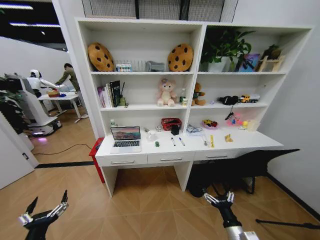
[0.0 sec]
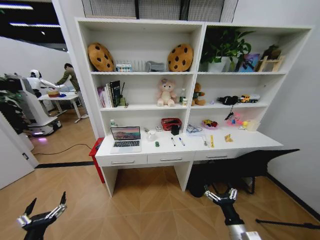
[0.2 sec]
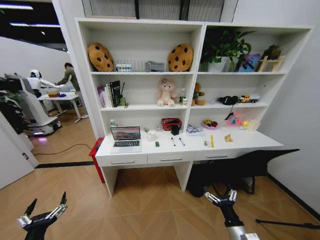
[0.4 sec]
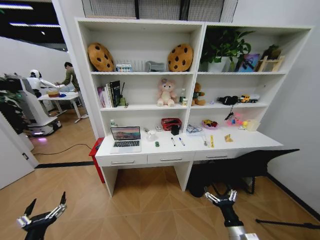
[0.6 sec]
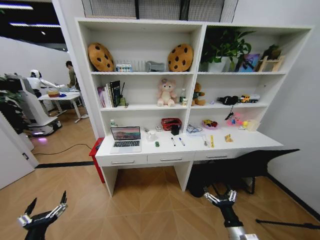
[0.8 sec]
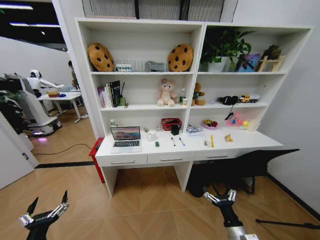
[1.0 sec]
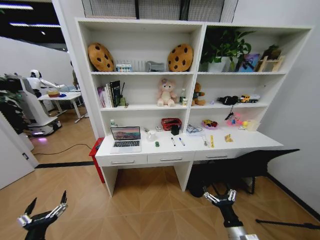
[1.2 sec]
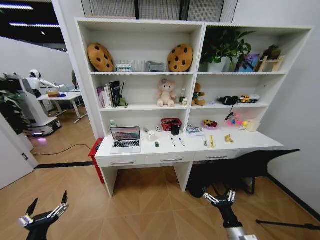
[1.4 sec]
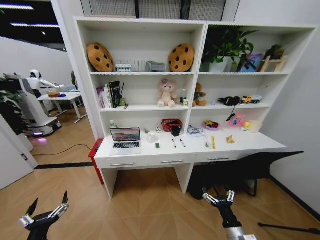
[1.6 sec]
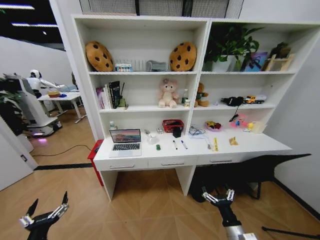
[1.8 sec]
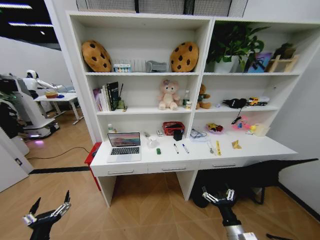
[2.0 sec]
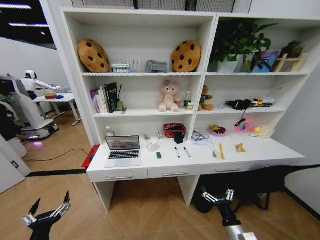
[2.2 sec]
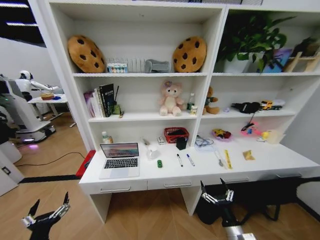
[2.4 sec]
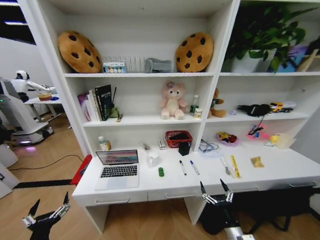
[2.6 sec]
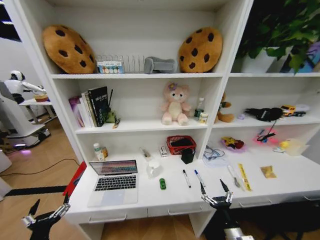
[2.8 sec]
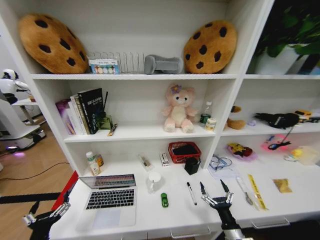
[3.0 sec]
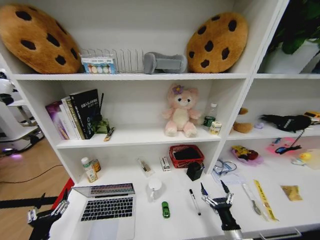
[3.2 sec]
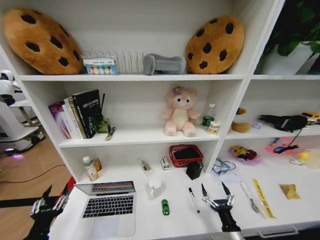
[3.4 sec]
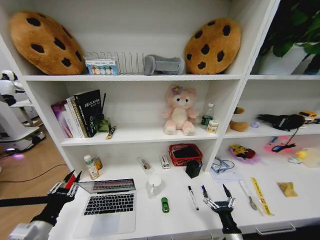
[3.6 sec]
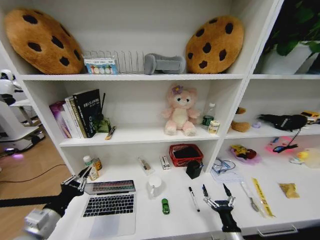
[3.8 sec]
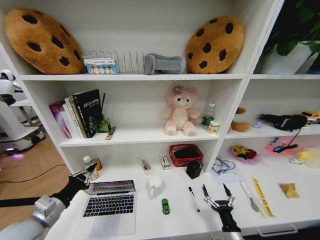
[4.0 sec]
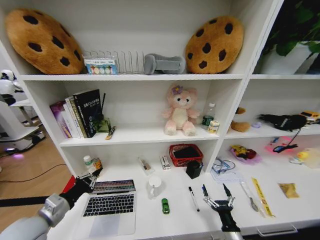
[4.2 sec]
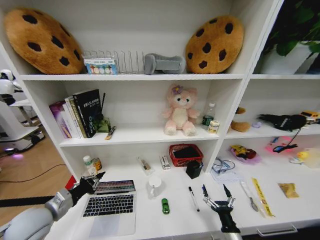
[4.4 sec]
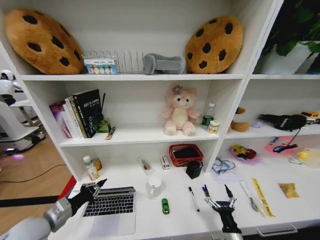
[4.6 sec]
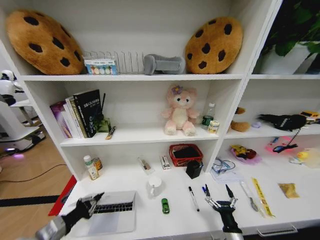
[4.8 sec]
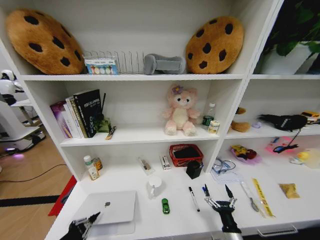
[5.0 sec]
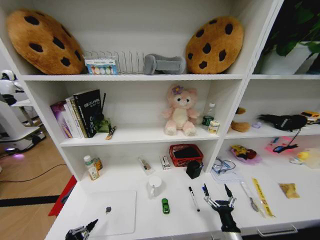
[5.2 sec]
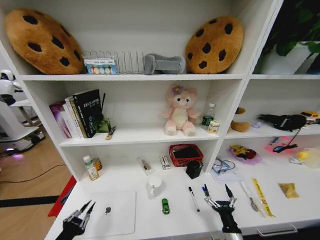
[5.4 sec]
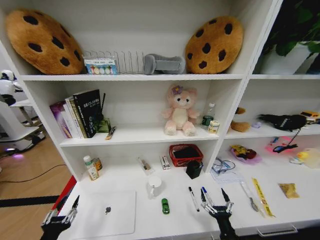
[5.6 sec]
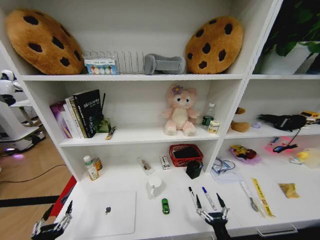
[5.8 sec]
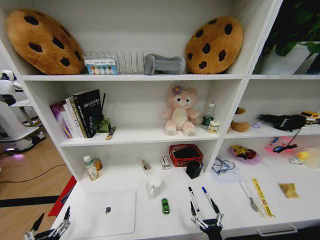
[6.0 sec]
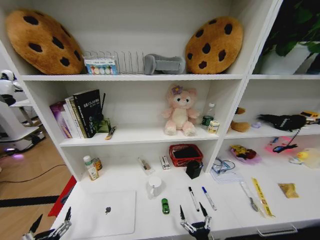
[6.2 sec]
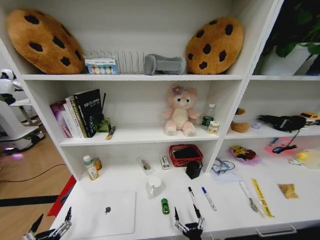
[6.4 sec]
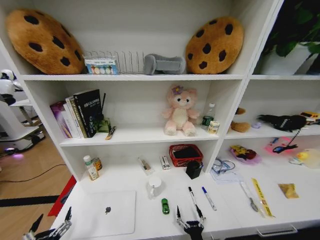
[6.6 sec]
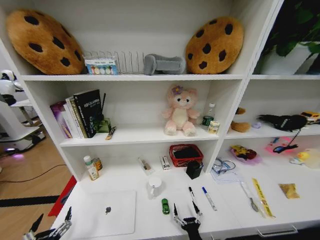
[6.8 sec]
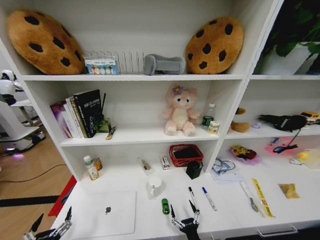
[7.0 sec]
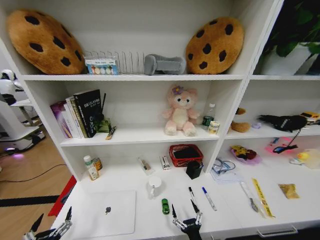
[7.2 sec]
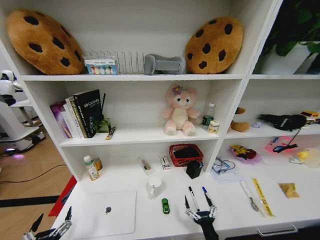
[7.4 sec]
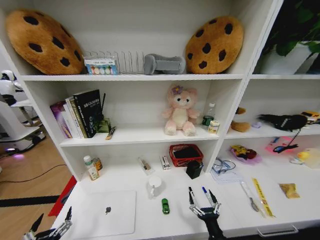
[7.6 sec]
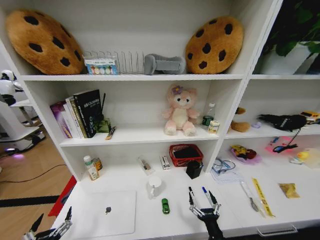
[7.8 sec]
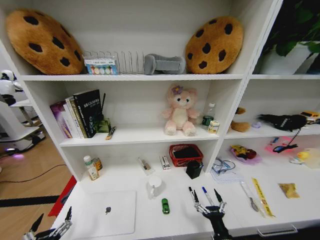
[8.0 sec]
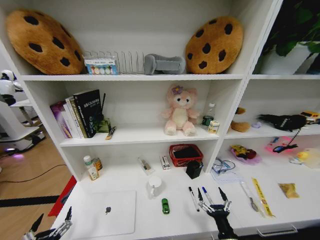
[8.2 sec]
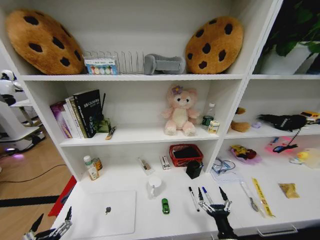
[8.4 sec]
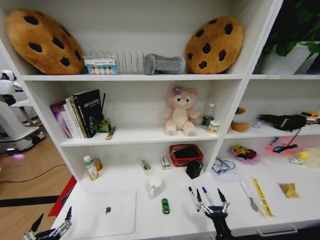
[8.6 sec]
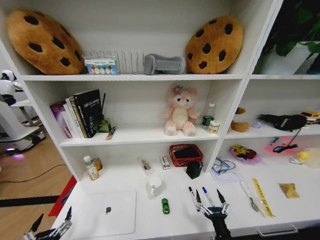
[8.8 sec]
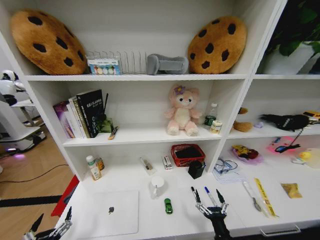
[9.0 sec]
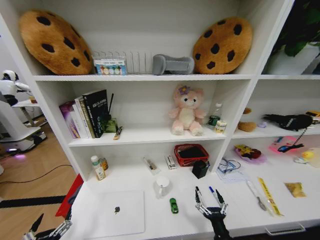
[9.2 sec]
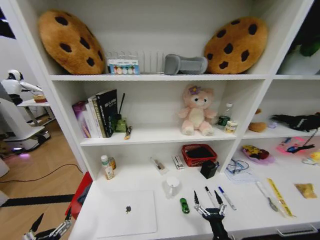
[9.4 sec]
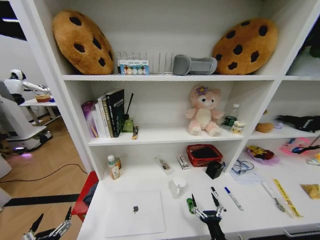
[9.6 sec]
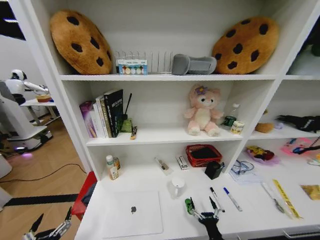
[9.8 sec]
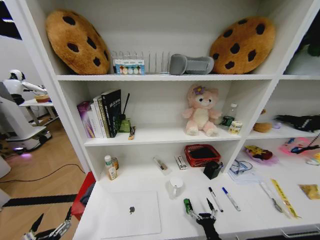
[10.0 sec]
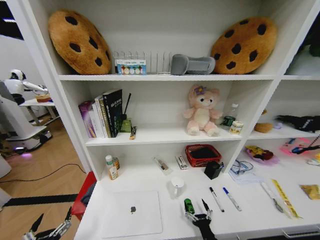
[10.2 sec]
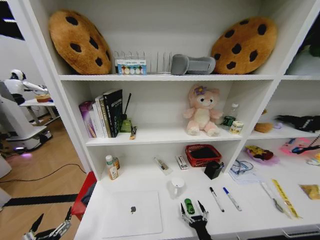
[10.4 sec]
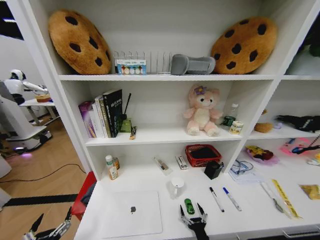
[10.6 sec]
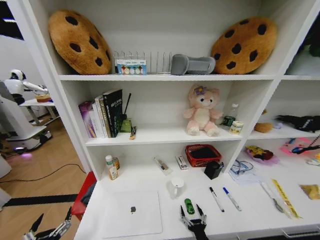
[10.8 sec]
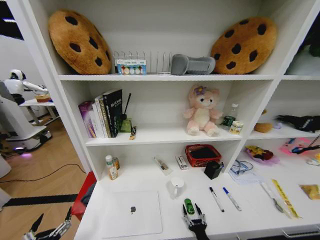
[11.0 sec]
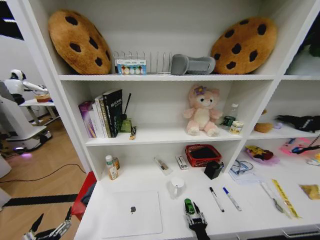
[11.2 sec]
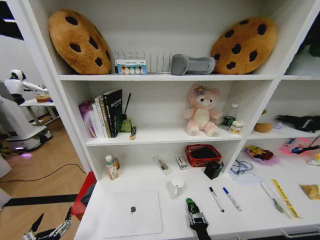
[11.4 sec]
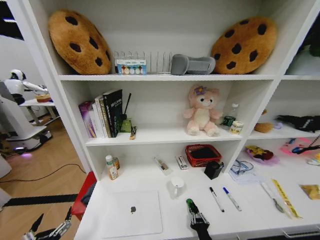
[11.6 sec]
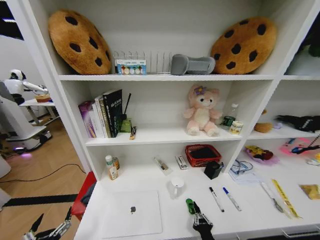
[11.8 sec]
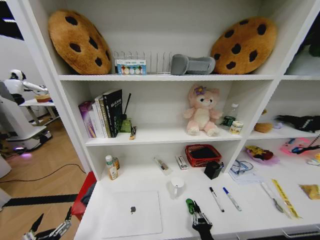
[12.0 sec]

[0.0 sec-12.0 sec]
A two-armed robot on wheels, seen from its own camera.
Task of the whole recording: Organize the objects on the table.
3.0 sec to 4.4 sec: The left gripper goes roughly 15 cm forward and upward, and closes up.
4.4 sec to 6.0 sec: The left gripper heads backward and downward, covering approximately 20 cm, and opens up; the right gripper moves backward and to the left, some 10 cm.
7.6 sec to 9.0 sec: The grippers stay close to where they were, moving slightly.
9.0 sec to 10.4 sec: The right gripper moves downward, about 5 cm.
10.4 sec to 12.0 sec: The right gripper closes.

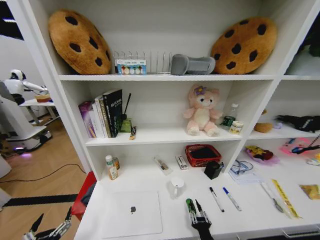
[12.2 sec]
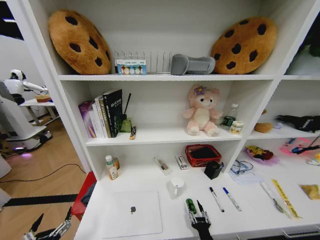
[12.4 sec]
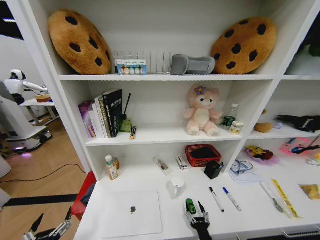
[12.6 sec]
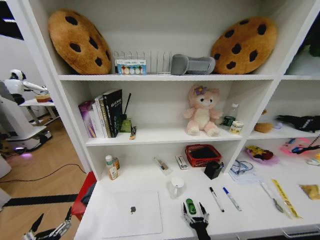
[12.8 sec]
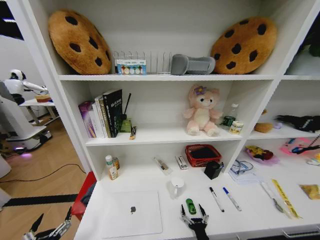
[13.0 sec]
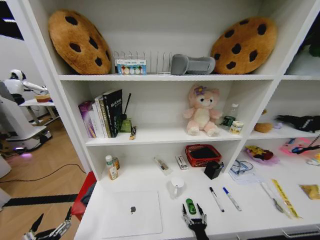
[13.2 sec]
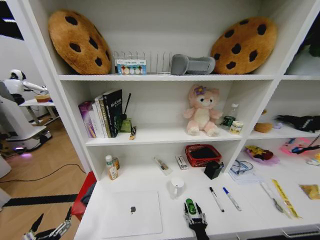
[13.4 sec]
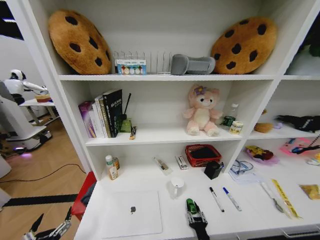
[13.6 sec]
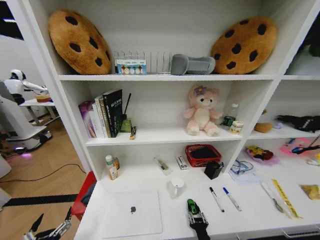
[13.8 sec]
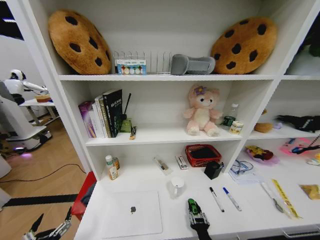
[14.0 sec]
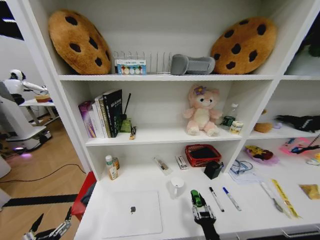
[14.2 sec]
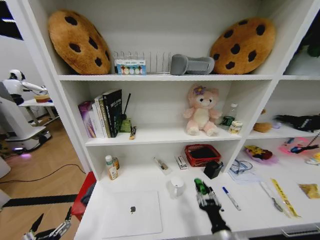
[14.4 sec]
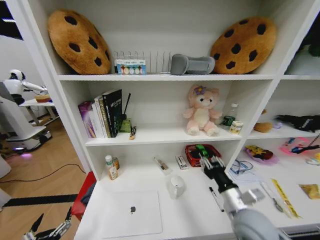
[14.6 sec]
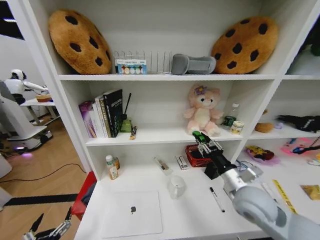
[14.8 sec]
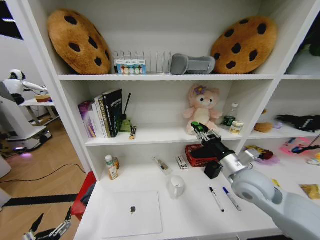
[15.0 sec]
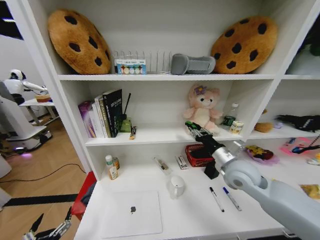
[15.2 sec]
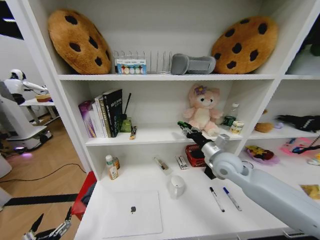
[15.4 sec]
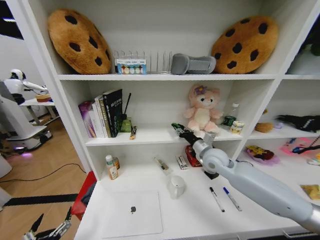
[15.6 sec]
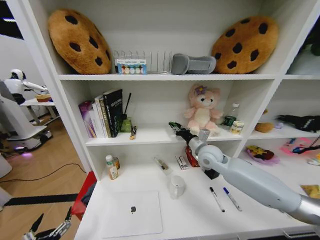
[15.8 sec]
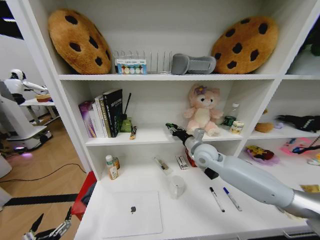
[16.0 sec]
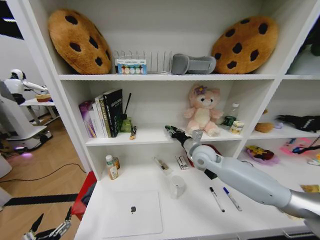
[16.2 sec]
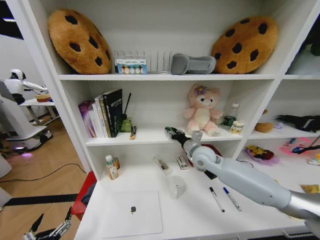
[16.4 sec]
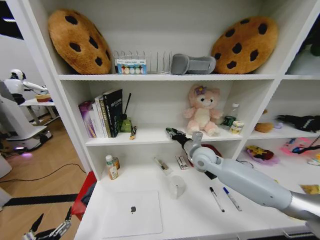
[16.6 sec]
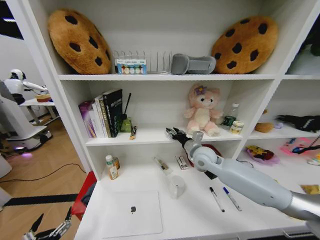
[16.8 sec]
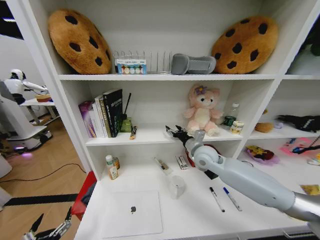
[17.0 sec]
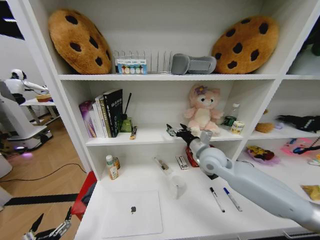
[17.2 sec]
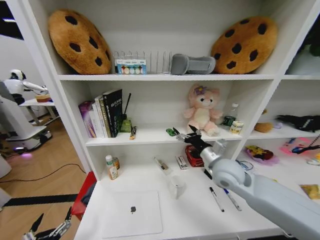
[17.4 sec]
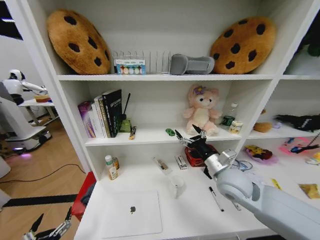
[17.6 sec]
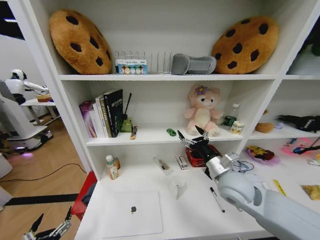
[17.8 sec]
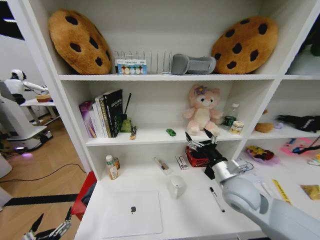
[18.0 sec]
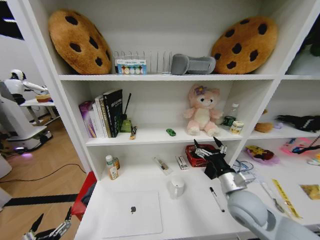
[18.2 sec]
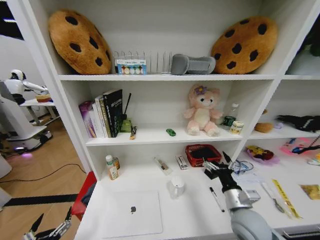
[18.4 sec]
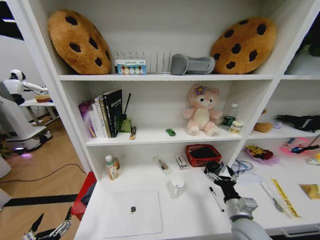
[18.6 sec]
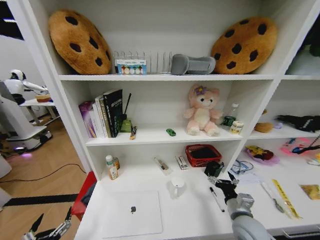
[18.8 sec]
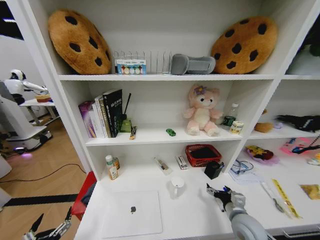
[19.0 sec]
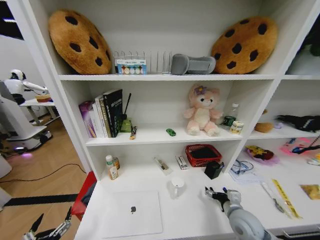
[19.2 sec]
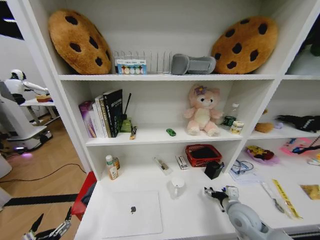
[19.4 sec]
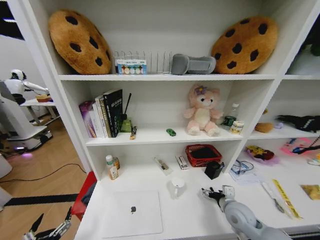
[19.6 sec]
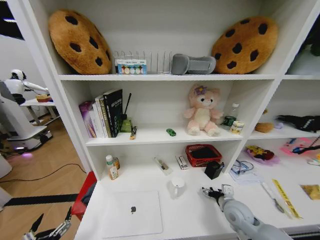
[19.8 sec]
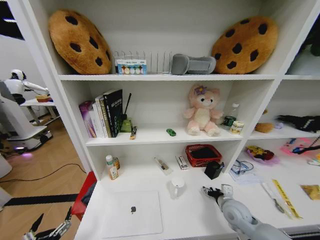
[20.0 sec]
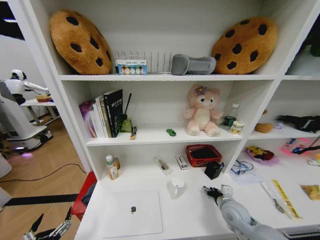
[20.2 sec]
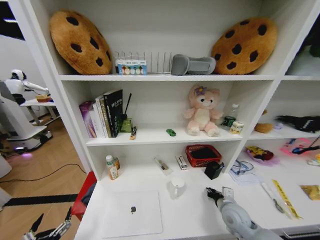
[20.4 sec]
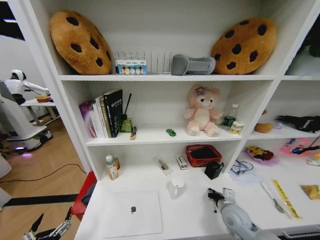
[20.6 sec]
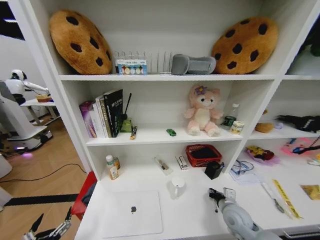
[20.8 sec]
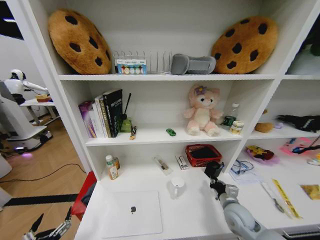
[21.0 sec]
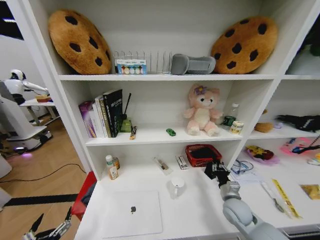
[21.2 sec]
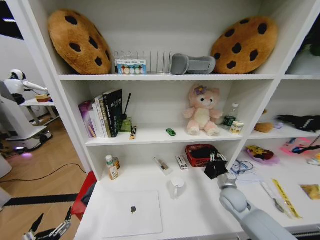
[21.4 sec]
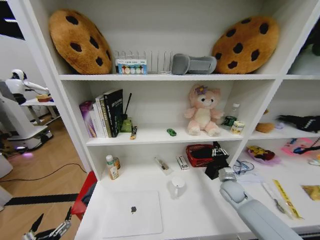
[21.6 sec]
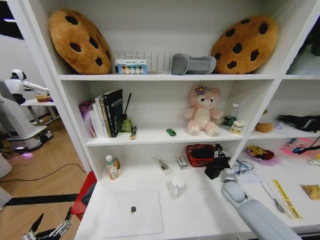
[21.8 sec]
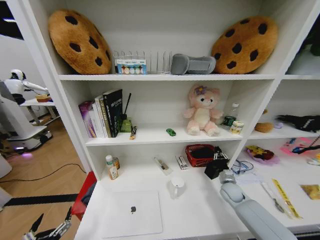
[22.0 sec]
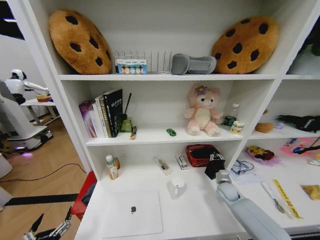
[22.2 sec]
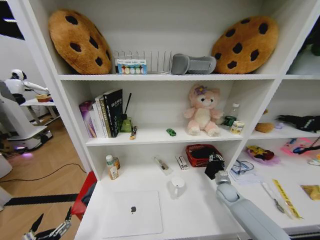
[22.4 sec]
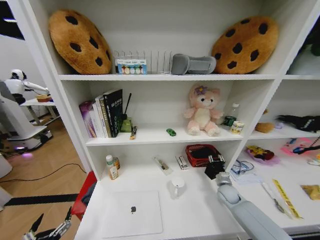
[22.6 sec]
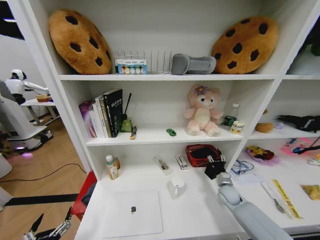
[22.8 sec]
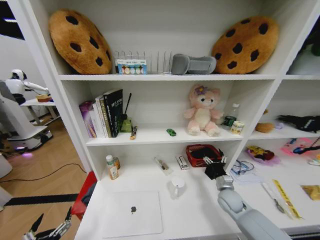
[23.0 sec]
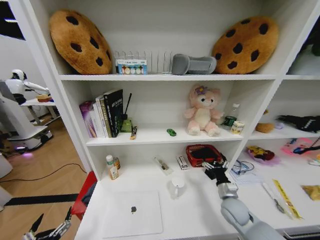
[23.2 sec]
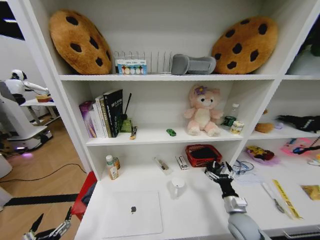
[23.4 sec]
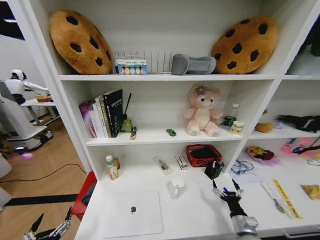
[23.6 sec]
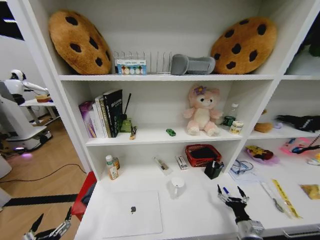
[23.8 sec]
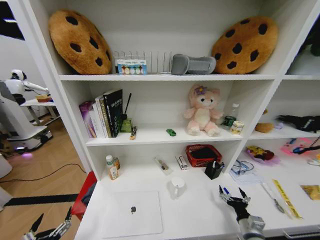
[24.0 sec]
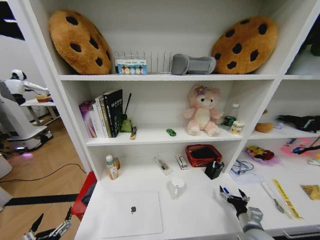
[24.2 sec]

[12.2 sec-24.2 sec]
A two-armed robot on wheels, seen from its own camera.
Task of the whole recording: Organize the objects on the table.
13.8 sec to 15.2 sec: The right gripper heads upward and forward, covering roughly 40 cm.
15.2 sec to 16.6 sec: The right gripper travels forward and to the left by about 10 cm.
16.6 sec to 18.2 sec: The right gripper goes about 20 cm backward and to the right, and opens up.
18.2 sec to 19.8 sec: The right gripper is displaced downward by approximately 10 cm.
19.8 sec to 21.2 sec: The right gripper closes.
21.2 sec to 22.6 sec: The right gripper goes approximately 15 cm forward, downward and to the right.
22.6 sec to 24.2 sec: The right gripper is displaced backward by some 20 cm, and opens up.
